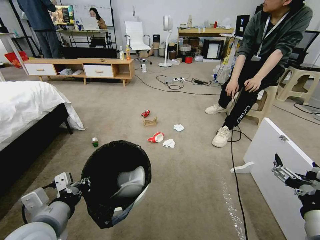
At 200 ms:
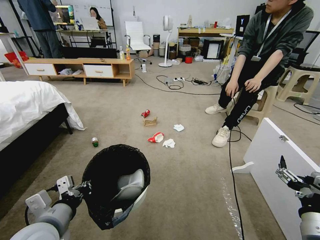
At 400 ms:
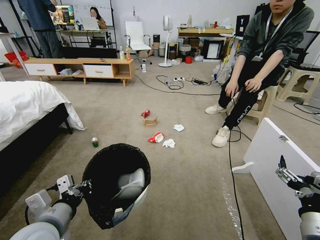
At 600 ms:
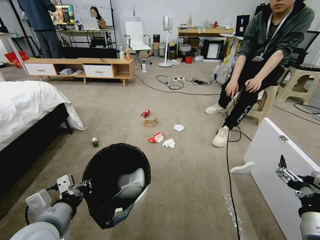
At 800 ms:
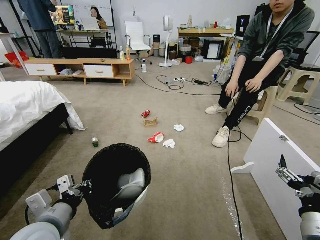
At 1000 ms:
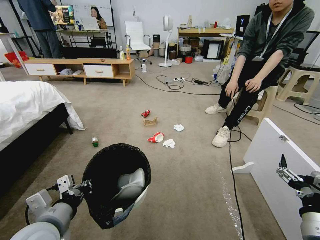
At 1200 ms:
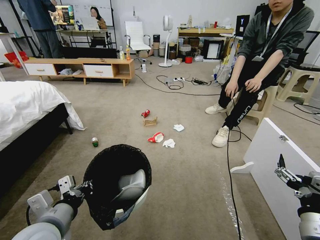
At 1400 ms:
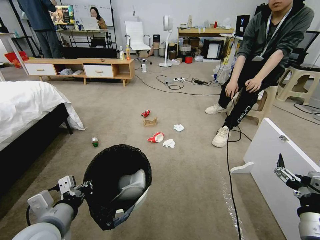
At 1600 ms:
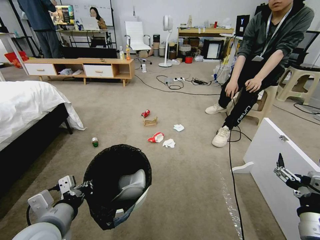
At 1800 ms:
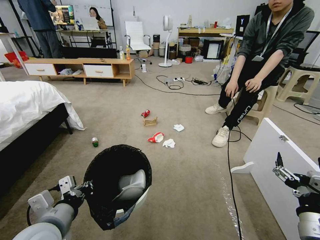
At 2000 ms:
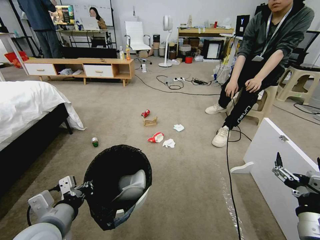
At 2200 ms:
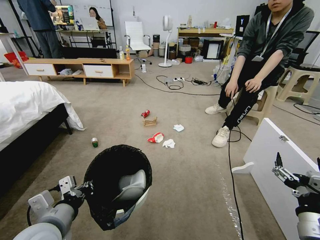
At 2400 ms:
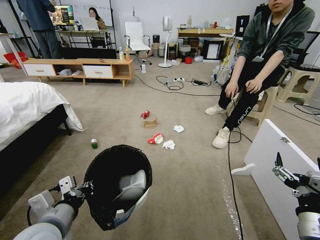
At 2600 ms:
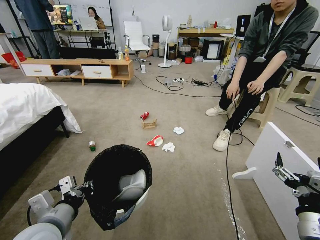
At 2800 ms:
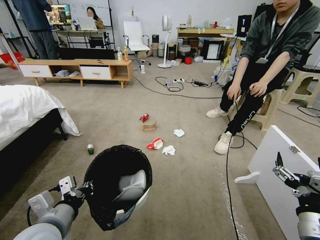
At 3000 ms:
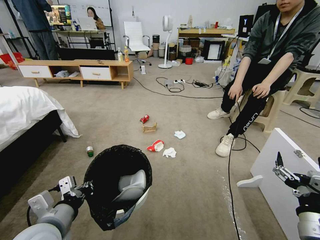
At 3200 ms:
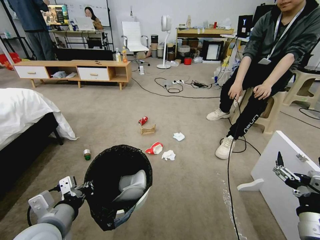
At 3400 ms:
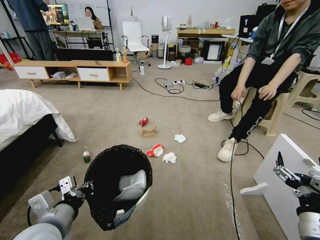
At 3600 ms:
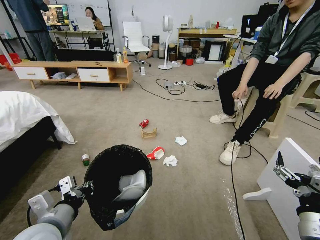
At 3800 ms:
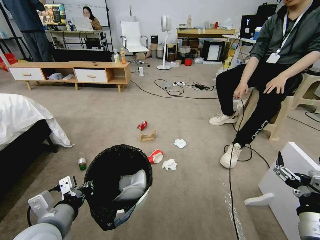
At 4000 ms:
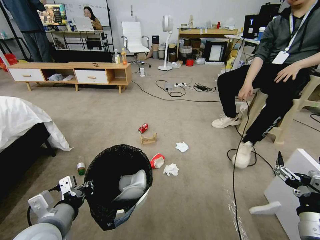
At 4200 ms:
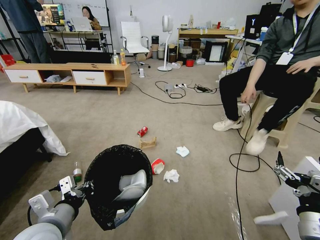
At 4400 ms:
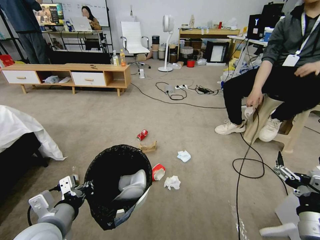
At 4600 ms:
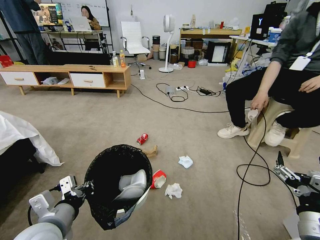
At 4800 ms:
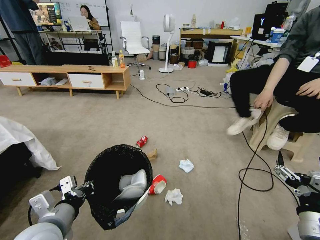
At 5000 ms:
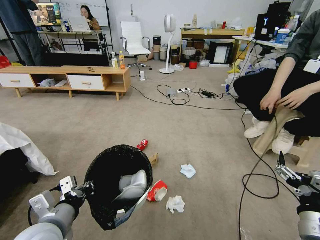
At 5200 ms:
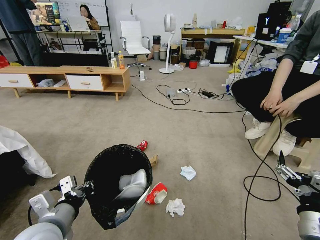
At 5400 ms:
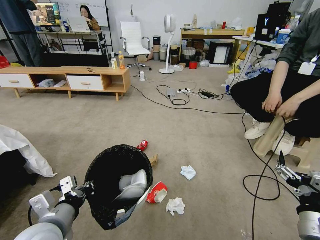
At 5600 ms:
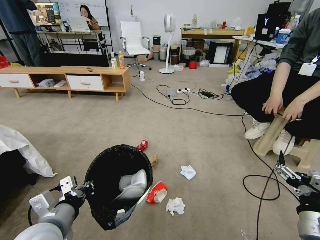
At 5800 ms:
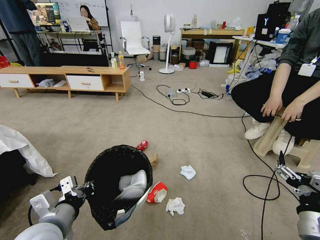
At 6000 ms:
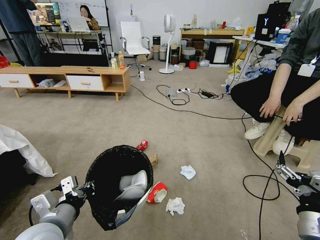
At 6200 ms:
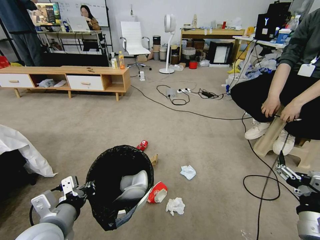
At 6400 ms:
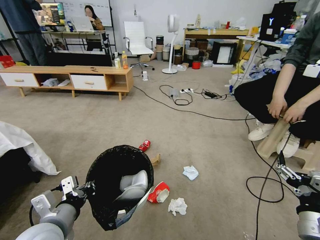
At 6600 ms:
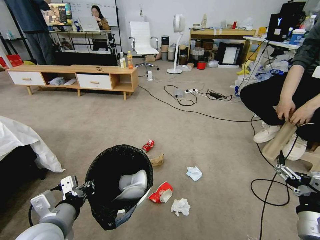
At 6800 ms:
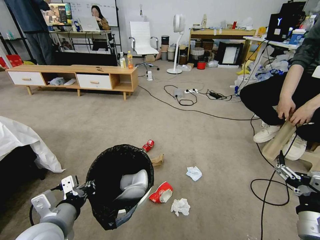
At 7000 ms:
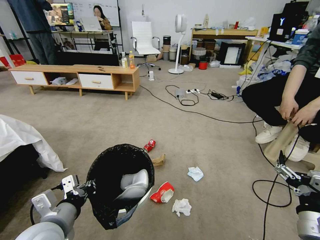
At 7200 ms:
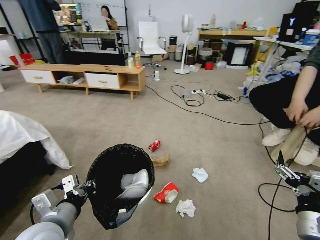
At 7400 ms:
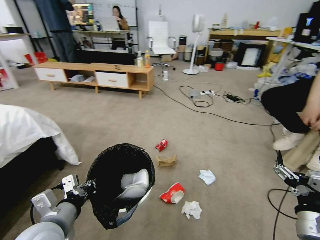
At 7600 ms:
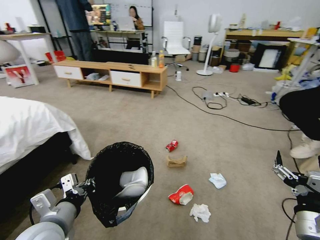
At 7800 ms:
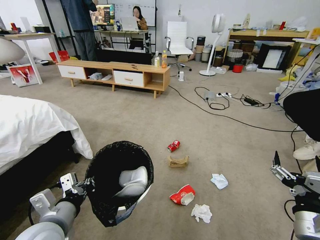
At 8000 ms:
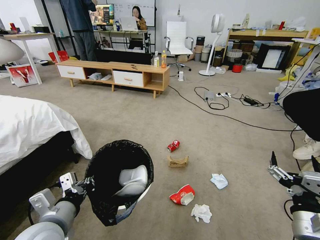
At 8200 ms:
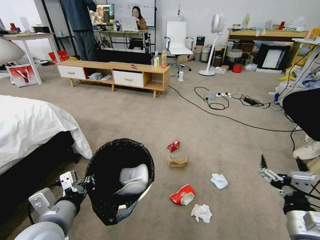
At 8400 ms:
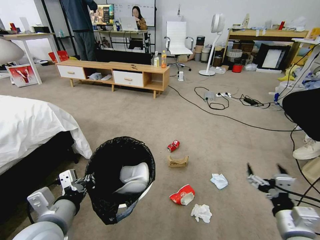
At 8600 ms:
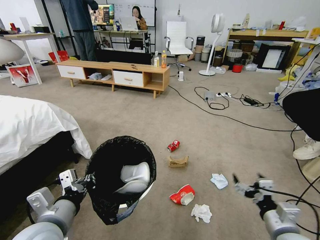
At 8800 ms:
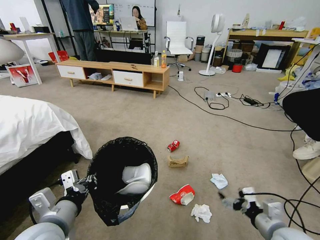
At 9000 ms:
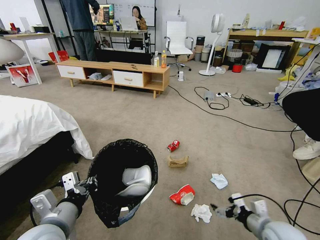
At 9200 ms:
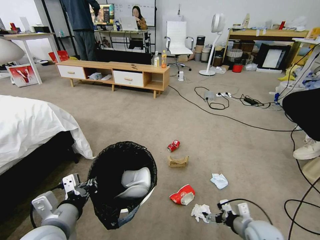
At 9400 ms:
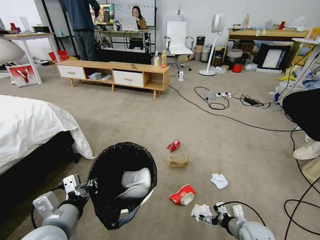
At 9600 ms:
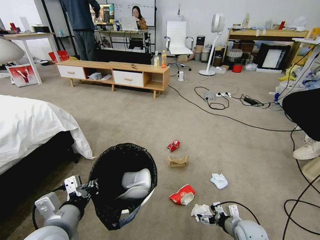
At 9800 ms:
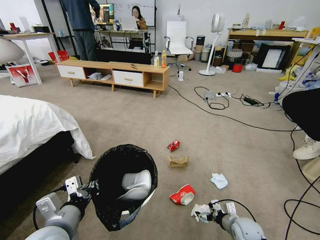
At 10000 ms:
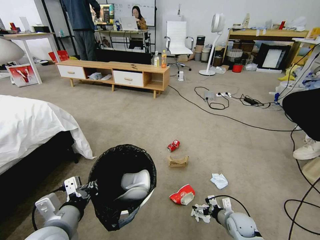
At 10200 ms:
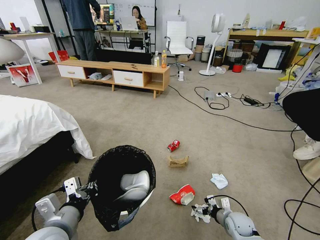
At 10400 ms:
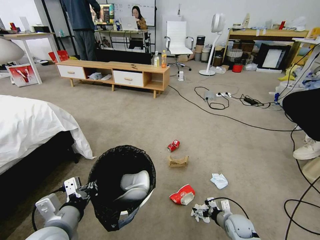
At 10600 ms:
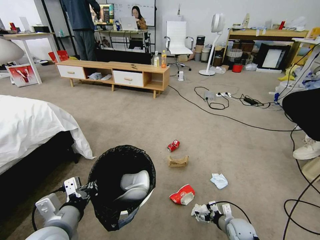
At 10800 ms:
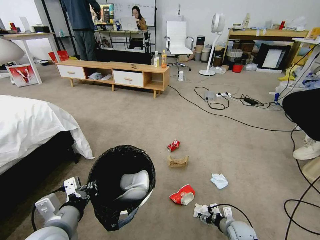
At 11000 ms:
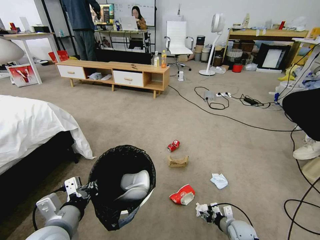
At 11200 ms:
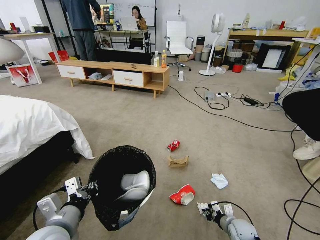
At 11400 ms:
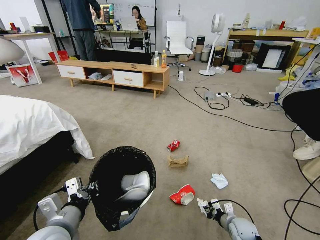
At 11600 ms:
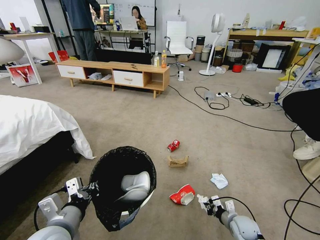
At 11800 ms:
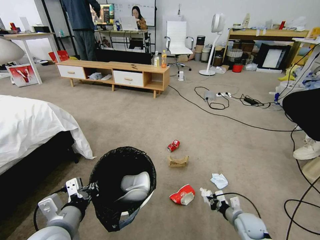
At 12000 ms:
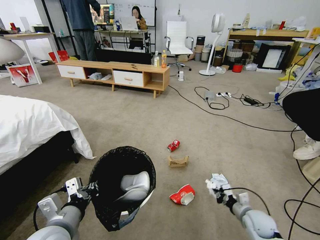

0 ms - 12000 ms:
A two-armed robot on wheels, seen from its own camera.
Task of the whole recording: Pick up the trash bin and place the garbage on the floor into it.
7600 ms - 9000 ms: The right gripper shifts roughly 15 cm downward and forward.
9000 ms - 10400 ms: The right gripper travels downward and forward by some 15 cm.
10400 ms - 12000 ms: The right gripper heads upward, covering about 5 cm, and closes up.

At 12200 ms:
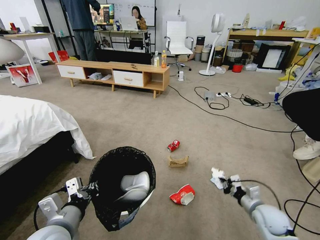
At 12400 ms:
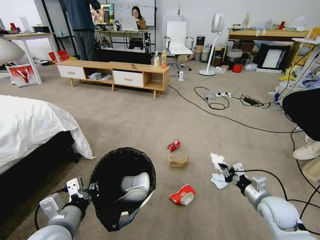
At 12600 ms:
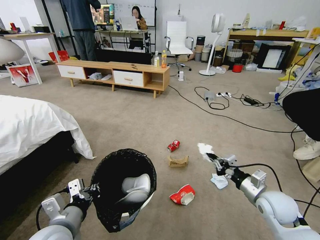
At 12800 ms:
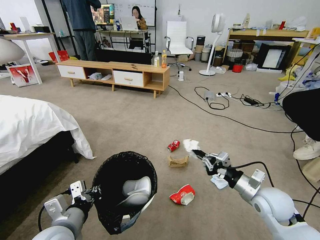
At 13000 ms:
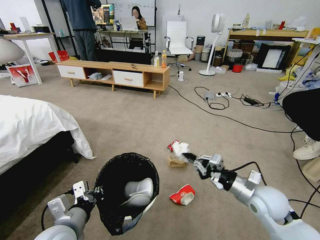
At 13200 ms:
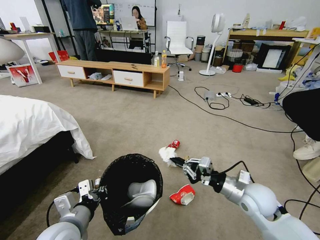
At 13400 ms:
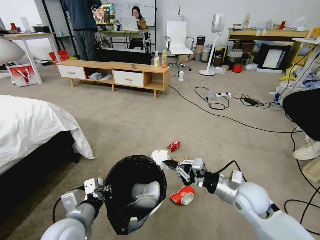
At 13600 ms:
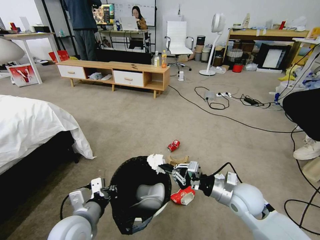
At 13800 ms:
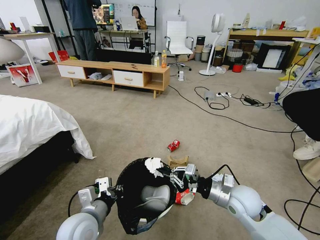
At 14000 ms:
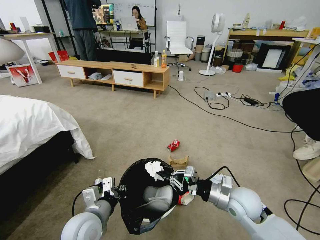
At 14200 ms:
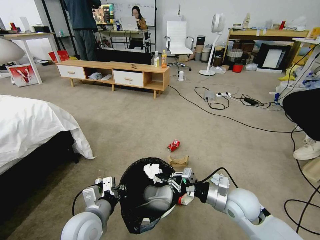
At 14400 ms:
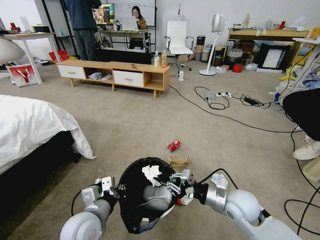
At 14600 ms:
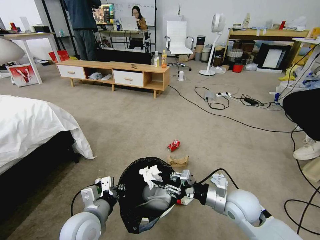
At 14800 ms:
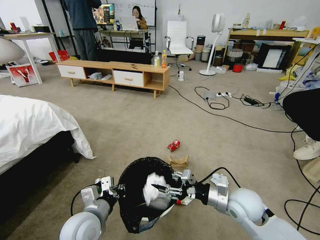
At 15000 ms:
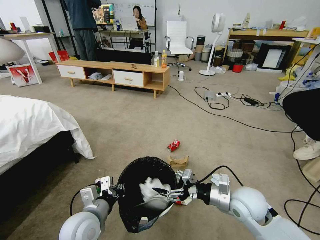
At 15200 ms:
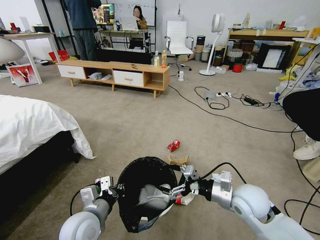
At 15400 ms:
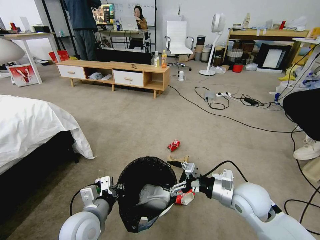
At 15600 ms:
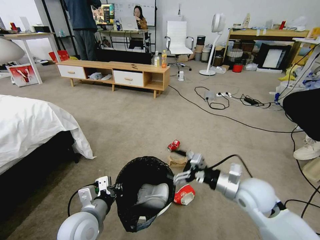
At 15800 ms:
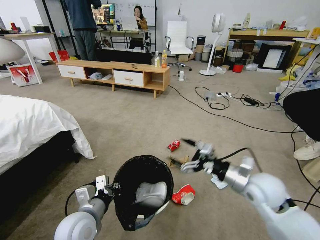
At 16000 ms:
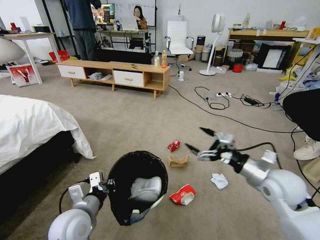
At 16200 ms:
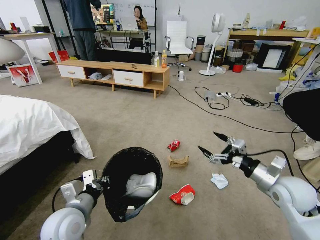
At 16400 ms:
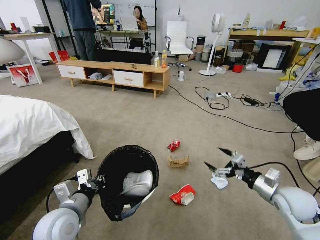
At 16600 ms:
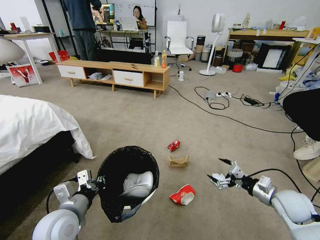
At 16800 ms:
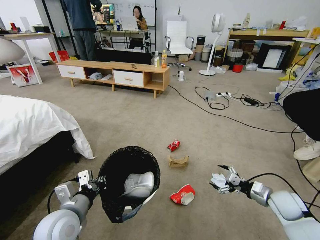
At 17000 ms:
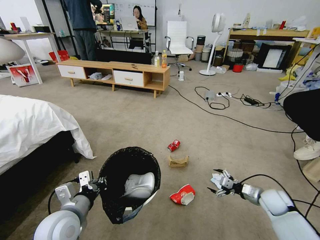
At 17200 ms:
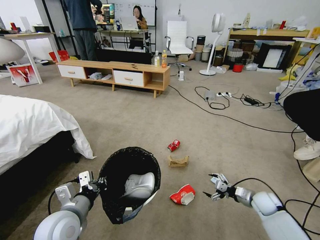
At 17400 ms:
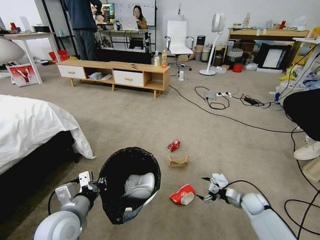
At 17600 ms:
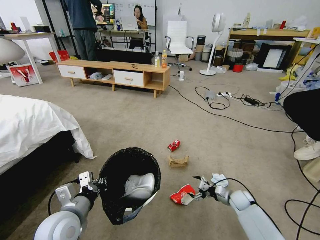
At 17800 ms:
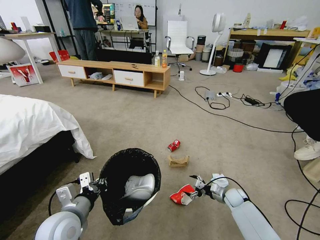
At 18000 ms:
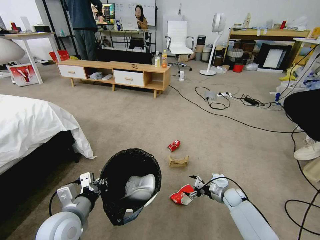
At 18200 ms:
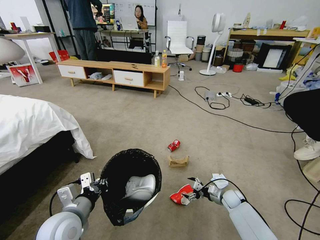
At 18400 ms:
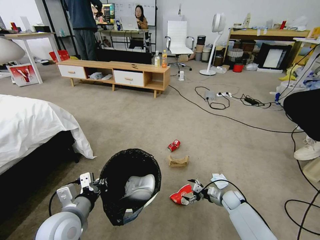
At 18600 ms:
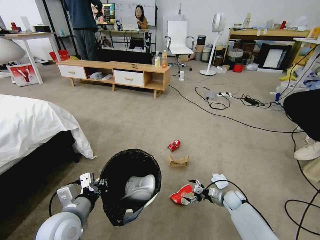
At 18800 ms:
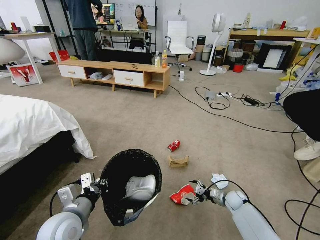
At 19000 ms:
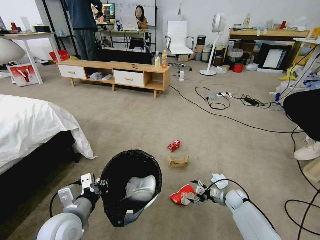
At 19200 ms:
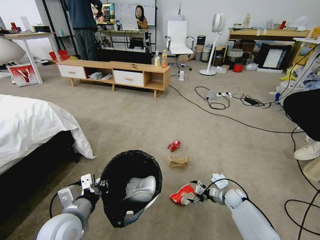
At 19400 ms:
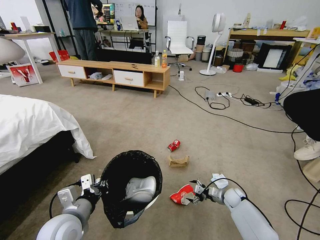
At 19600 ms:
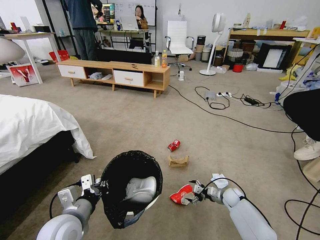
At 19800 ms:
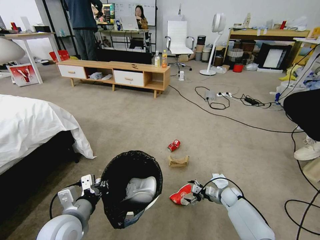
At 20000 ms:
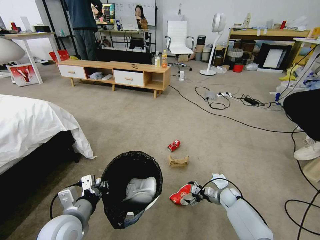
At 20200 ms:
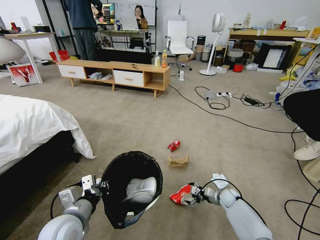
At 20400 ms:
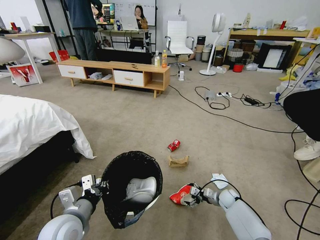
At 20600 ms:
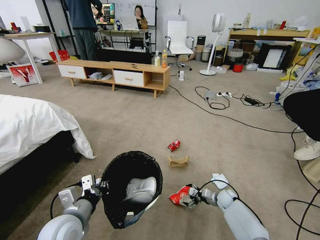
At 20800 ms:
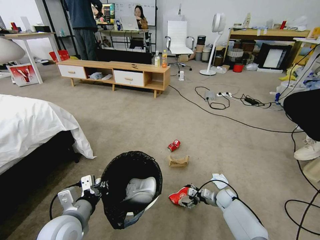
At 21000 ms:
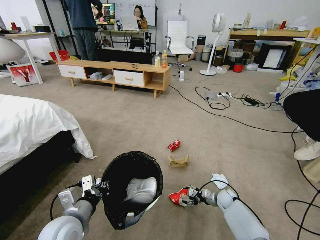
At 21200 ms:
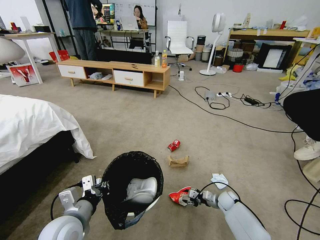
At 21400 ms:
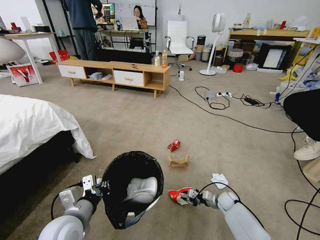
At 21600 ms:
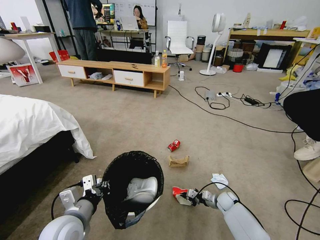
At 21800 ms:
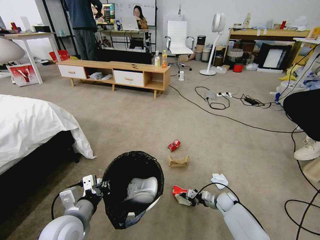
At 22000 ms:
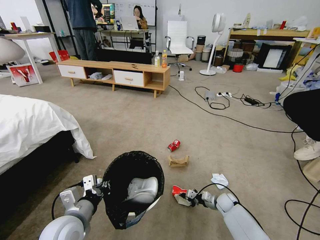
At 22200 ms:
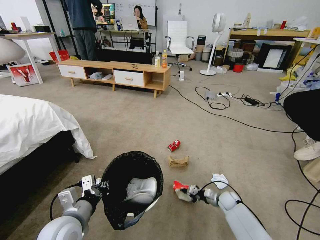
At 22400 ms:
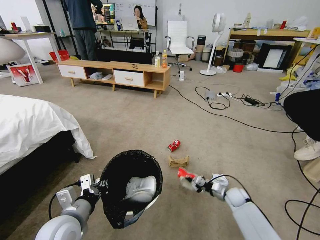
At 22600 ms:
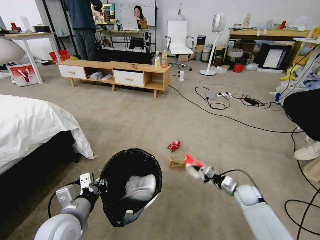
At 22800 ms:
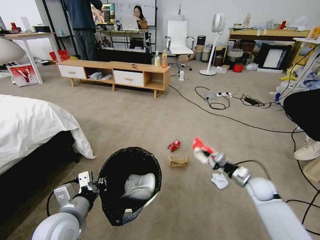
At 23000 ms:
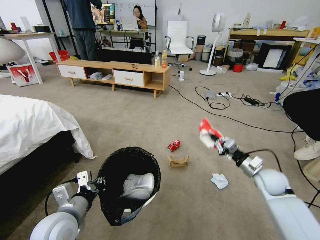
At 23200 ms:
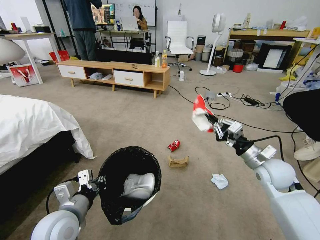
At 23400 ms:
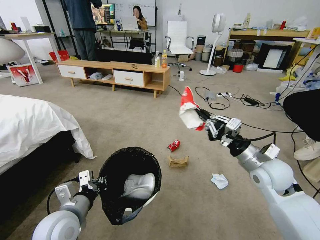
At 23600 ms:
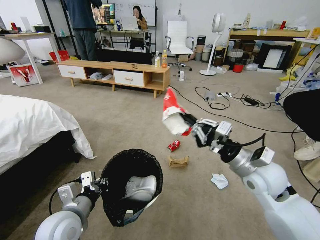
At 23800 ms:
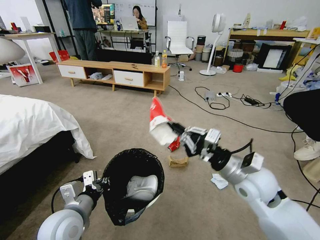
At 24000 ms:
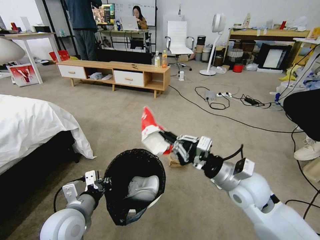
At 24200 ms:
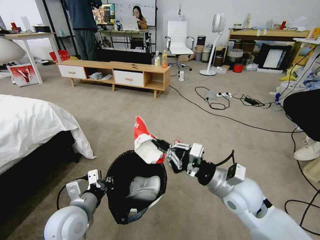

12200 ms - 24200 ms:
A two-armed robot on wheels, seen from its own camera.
Task of the whole recording: Pick up the trash bin and place the garbage on the floor into it.
12200 ms - 13800 ms: The right gripper shifts about 15 cm to the left and upward; the left gripper shifts by approximately 10 cm.
13800 ms - 15200 ms: The right gripper opens.
15200 ms - 16600 ms: The right gripper travels to the right by about 15 cm. Meanwhile the left gripper moves approximately 5 cm.
16600 ms - 18200 ms: The right gripper heads downward and forward, covering about 25 cm.
18200 ms - 19800 ms: There are only small adjustments of the grippers.
19800 ms - 21200 ms: The right gripper closes its fingers.
21200 ms - 22600 ms: The right gripper heads upward, covering roughly 10 cm, and closes.
22600 ms - 24200 ms: The right gripper goes some 30 cm upward, to the left and backward.
